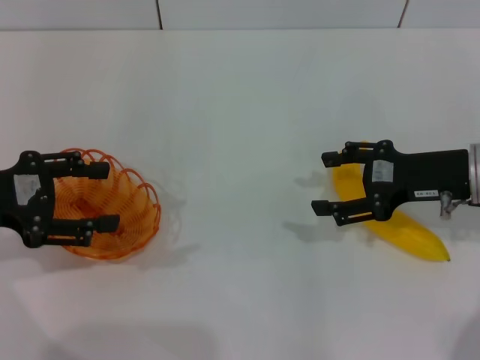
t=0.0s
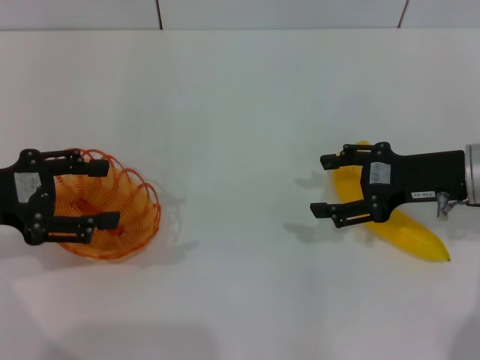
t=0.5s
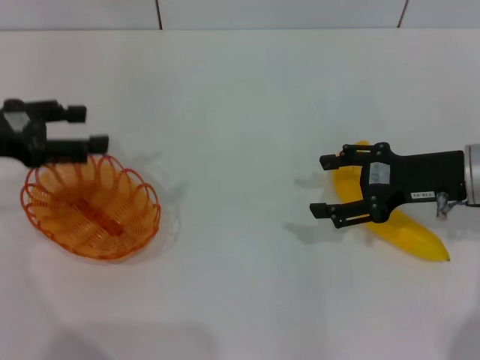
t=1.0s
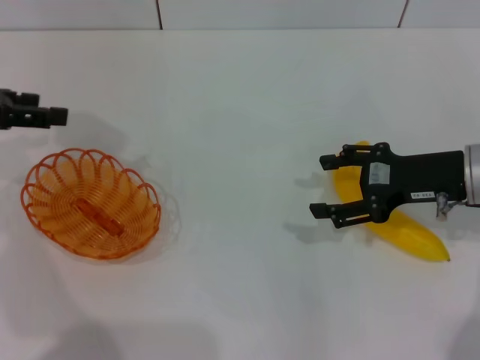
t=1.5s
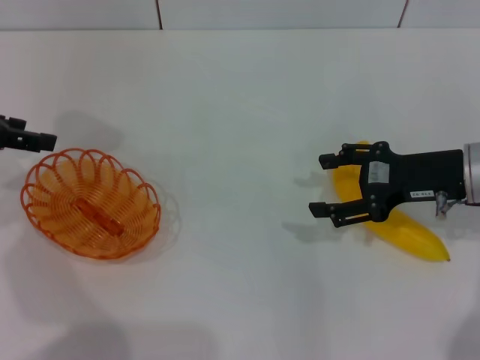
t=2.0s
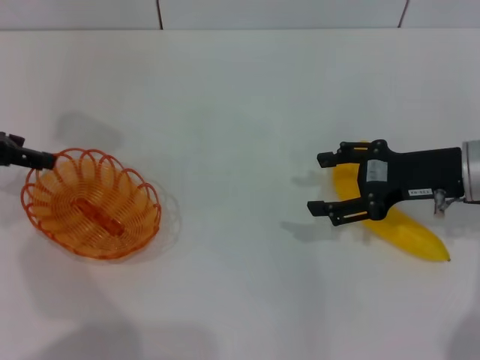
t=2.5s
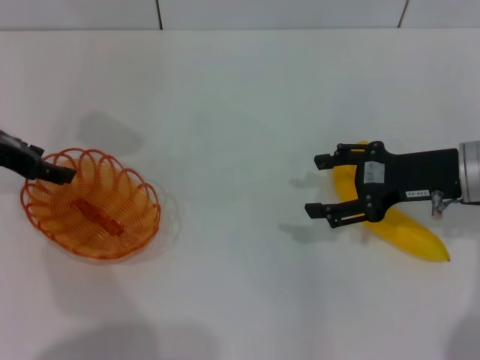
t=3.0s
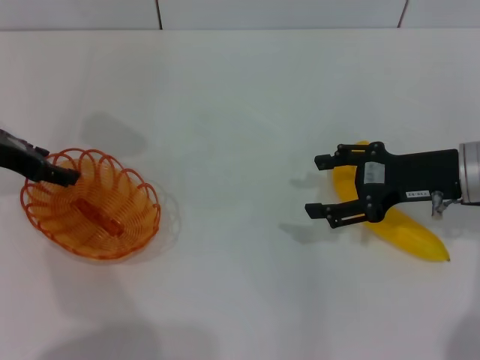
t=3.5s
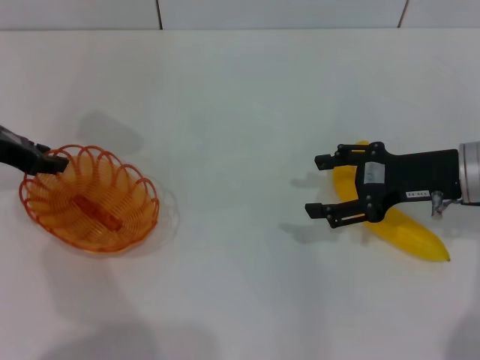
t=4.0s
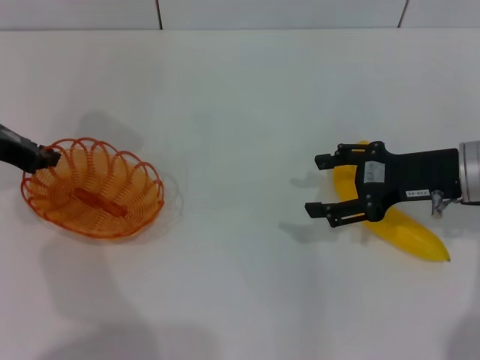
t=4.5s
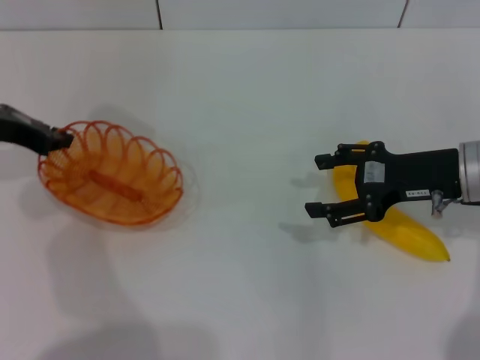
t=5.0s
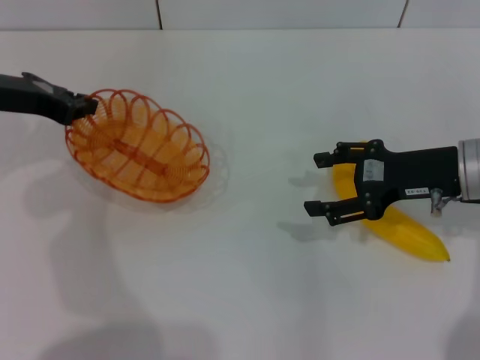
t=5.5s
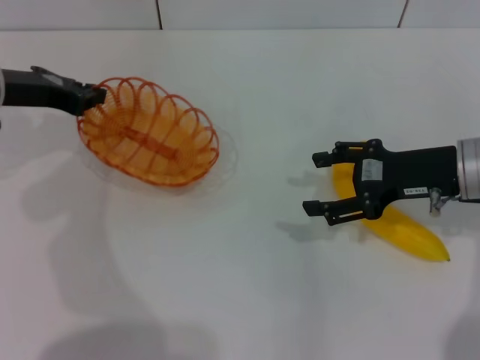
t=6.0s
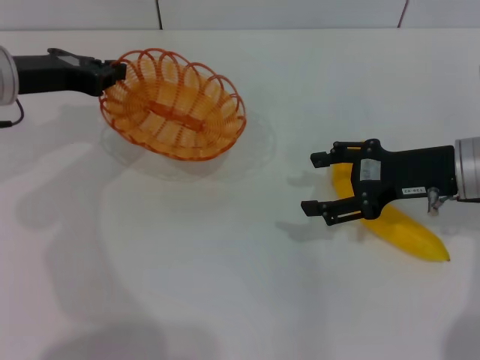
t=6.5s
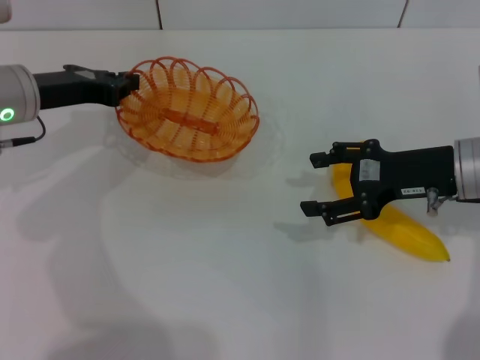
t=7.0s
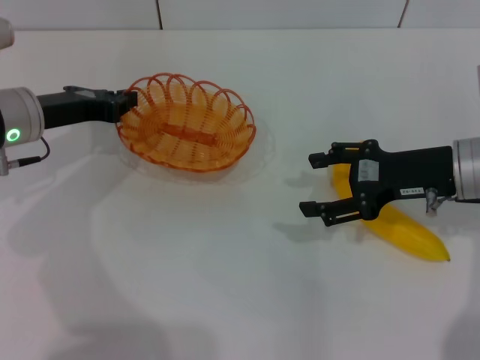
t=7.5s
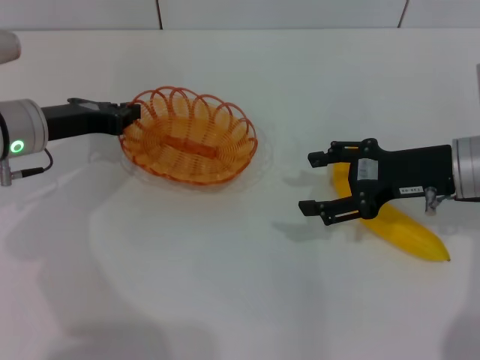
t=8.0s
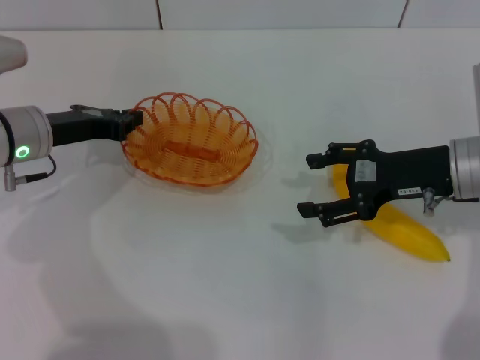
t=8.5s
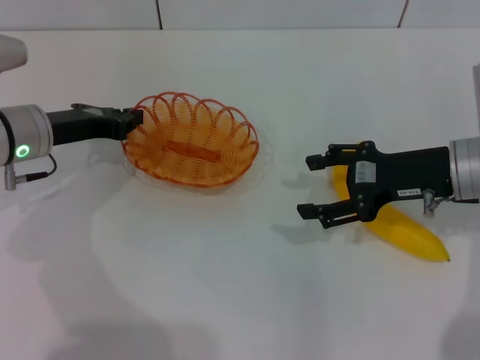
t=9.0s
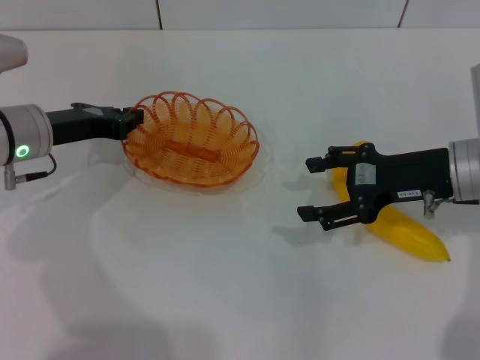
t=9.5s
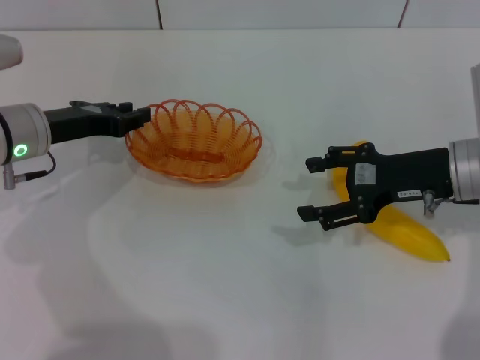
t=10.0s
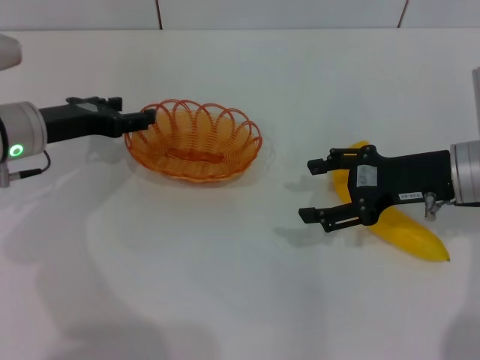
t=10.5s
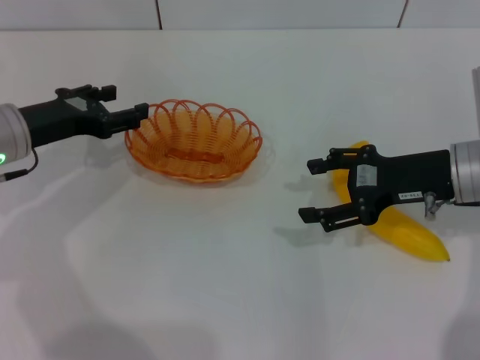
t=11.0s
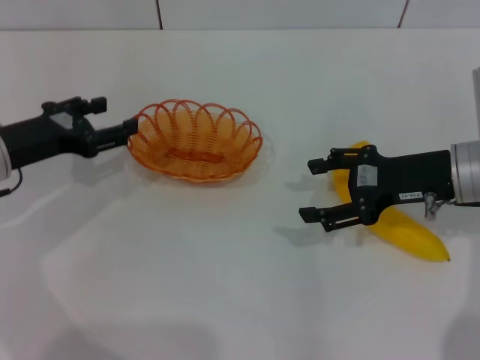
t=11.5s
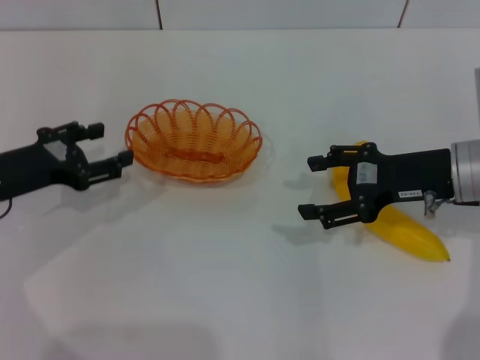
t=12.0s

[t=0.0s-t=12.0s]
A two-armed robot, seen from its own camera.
Step, t=0.0s to t=6.0s: Pick up the basket with the left gripper.
Step, t=6.5s to t=11.5s: Place the basket in the center of view with the left gripper.
t=0.0s to t=2.0s: The left gripper heads forward, covering approximately 10 cm.
t=2.0s to t=4.0s: The left gripper shifts by roughly 5 cm.
t=4.0s to t=6.0s: The left gripper closes.
t=6.0s to t=8.0s: The left gripper heads downward, covering roughly 5 cm.
t=8.0s to t=10.0s: Both grippers stay put.
t=10.0s to t=12.0s: The left gripper shifts about 5 cm backward, and opens.

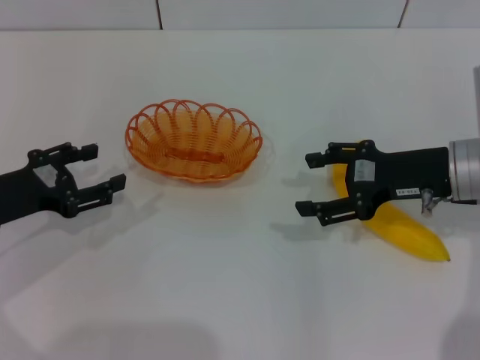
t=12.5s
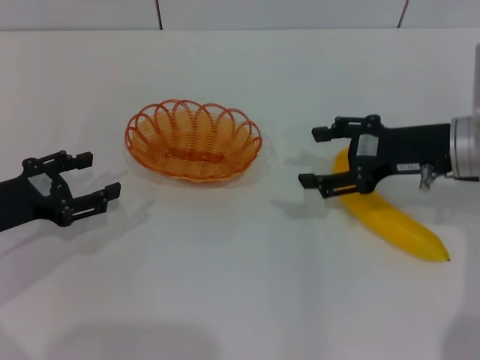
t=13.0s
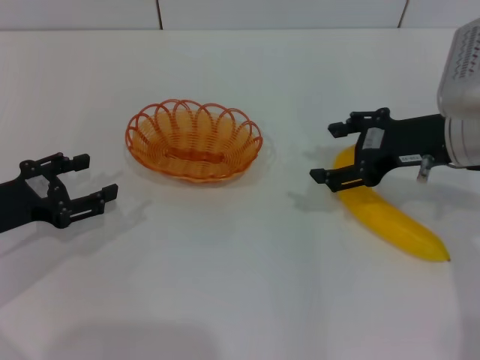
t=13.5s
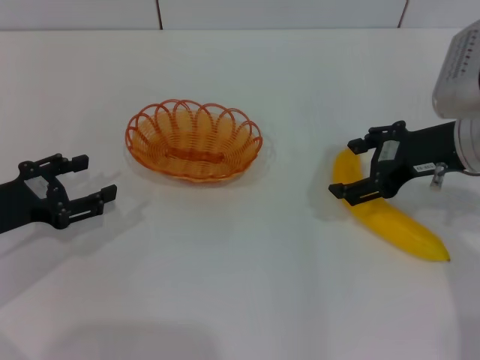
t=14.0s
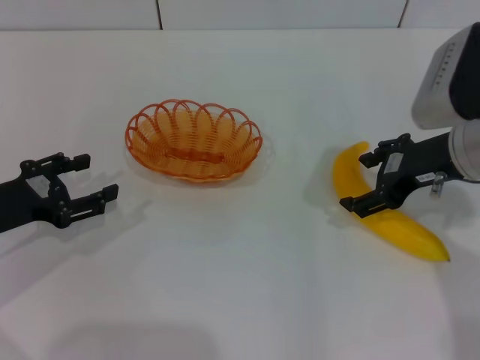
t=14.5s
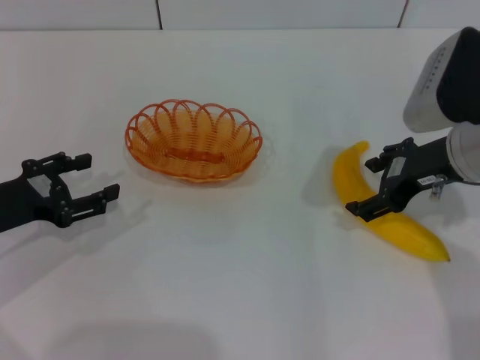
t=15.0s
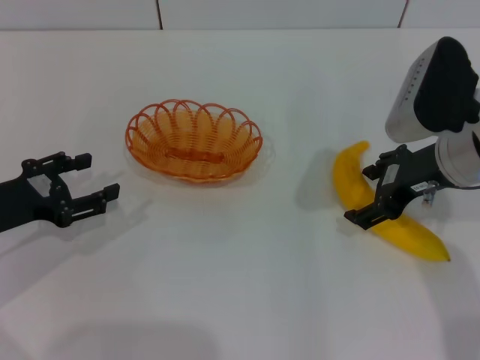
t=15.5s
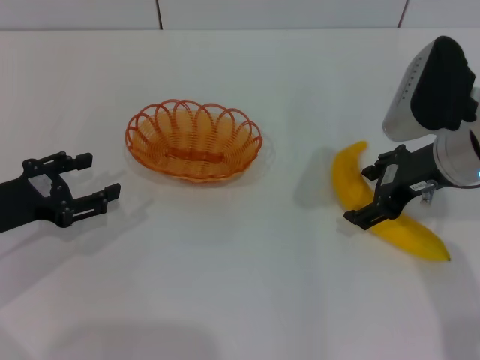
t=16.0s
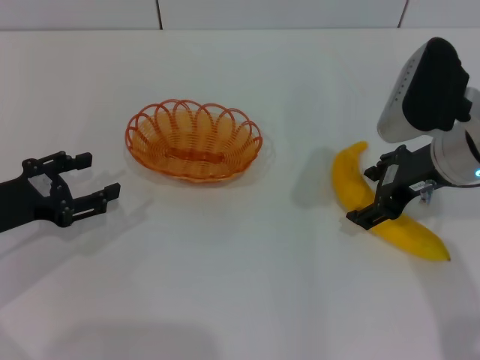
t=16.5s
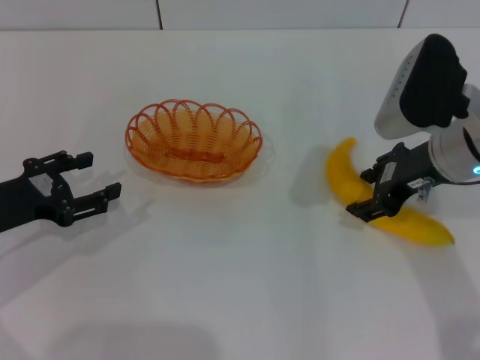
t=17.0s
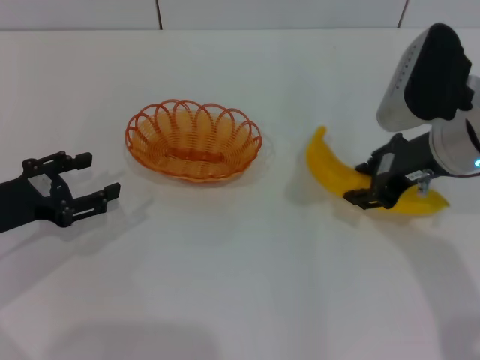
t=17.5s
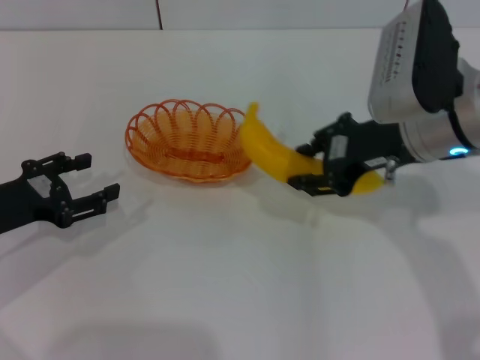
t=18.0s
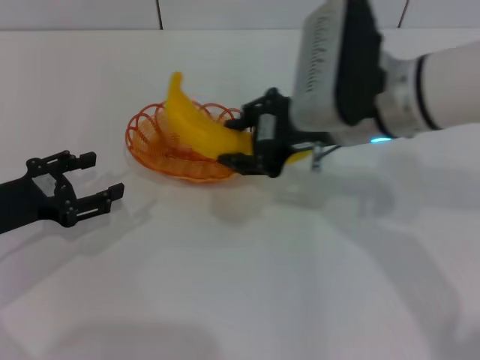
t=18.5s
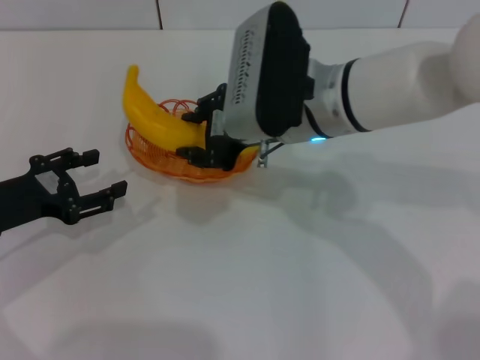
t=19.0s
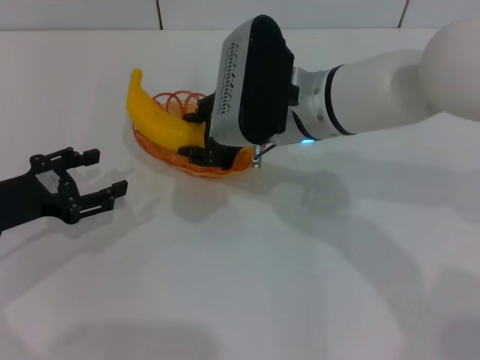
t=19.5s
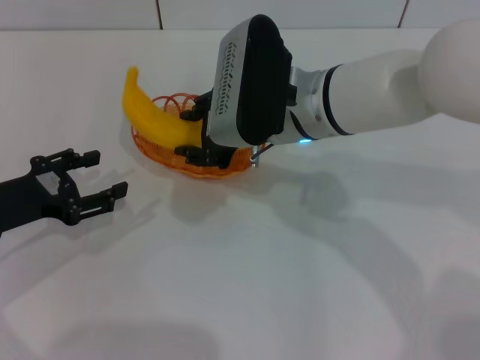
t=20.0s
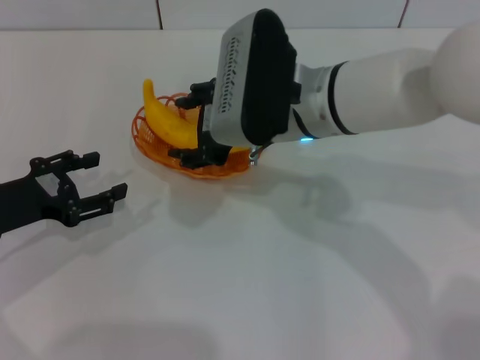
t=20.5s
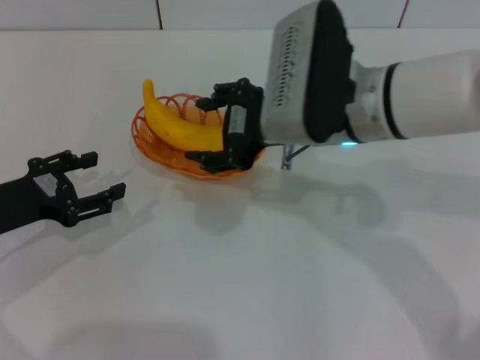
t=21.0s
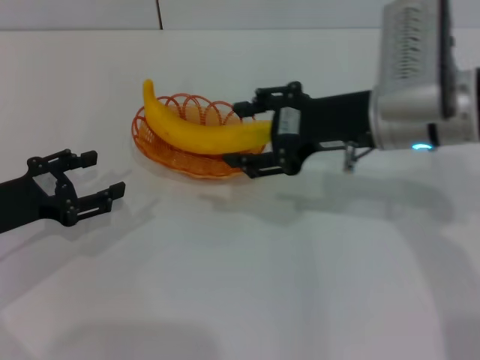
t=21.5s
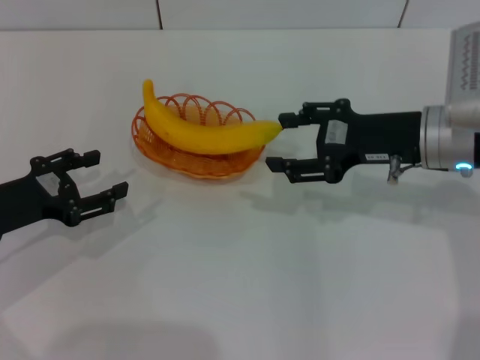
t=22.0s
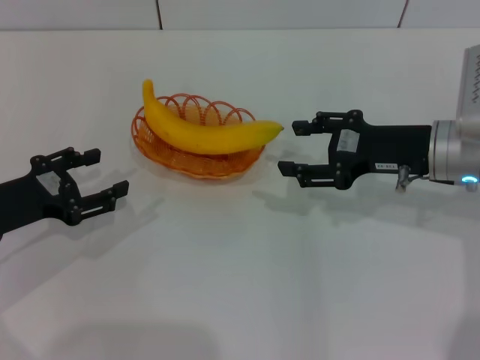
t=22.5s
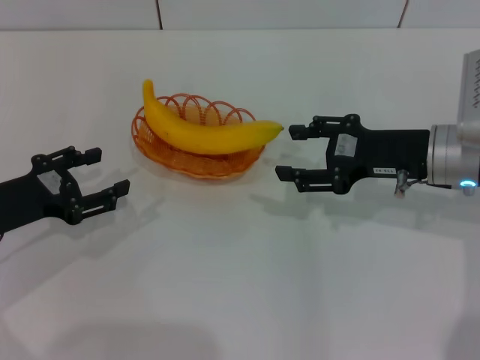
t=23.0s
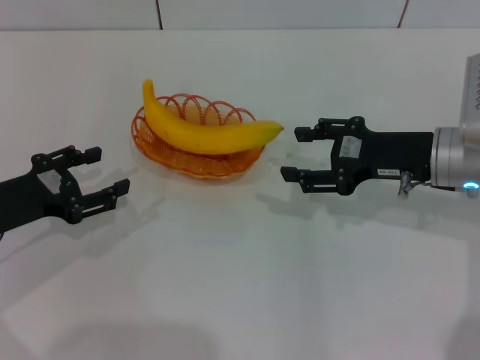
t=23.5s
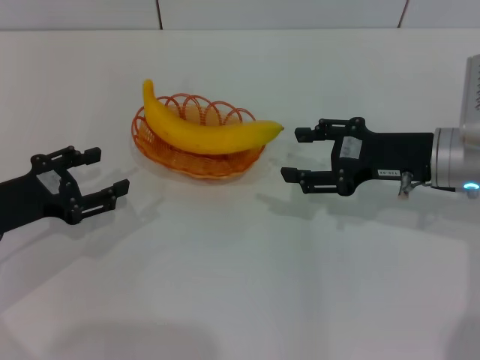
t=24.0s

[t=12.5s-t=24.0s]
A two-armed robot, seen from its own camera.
Step, t=12.5s to t=17.5s: Pick up the banana with the right gripper.
Step, t=18.0s to t=20.5s: Place the banana into the basket with the right gripper.
t=14.5s to t=16.5s: The grippers make only small movements.
t=16.5s to t=18.5s: The right gripper heads to the left, covering approximately 10 cm, and closes up.
t=18.5s to t=20.0s: The right gripper travels to the left by about 5 cm.
t=20.0s to t=22.0s: The right gripper shifts some 15 cm to the right.
t=22.0s to t=24.0s: The grippers move only a little.

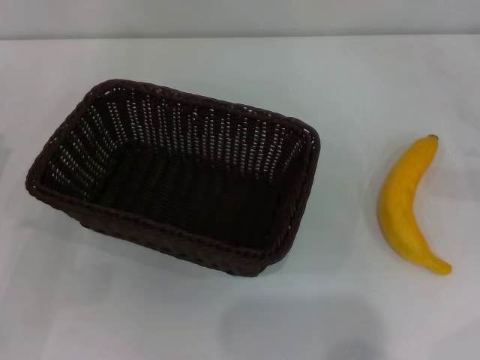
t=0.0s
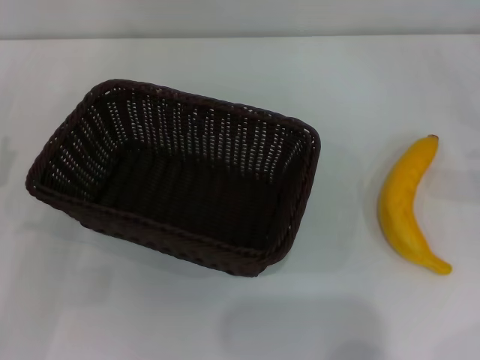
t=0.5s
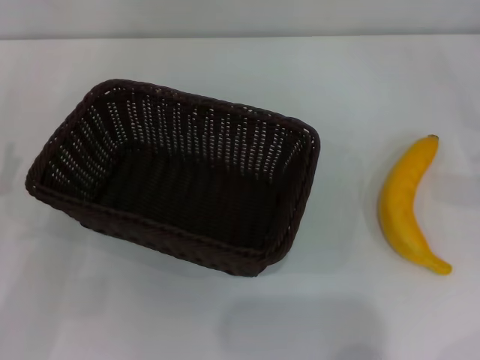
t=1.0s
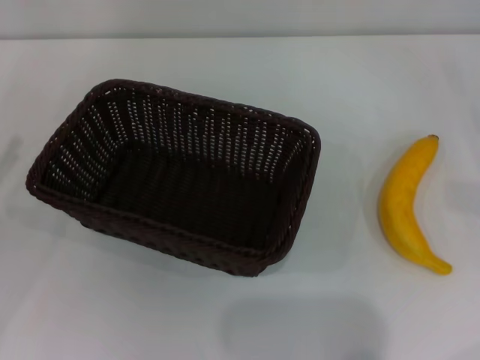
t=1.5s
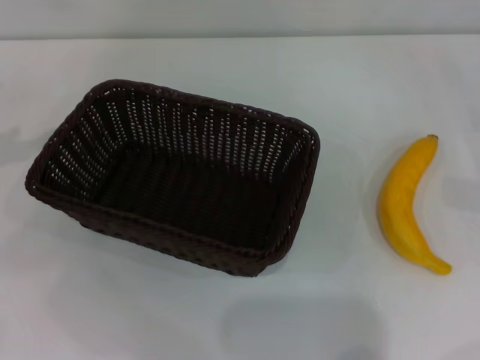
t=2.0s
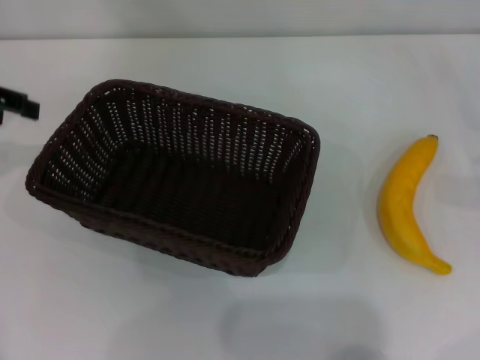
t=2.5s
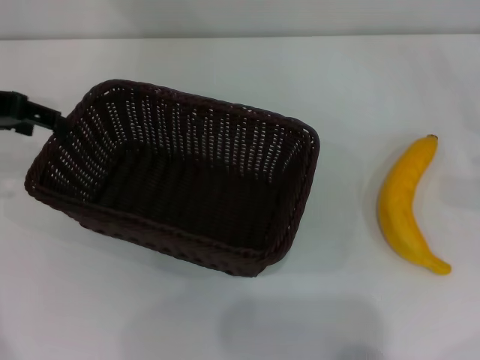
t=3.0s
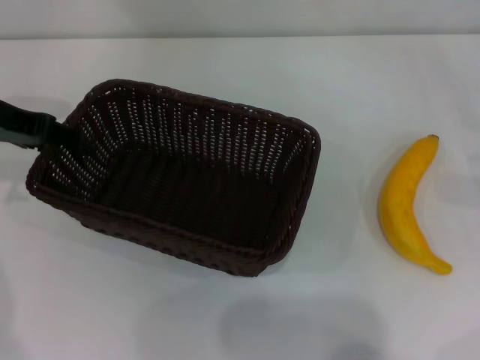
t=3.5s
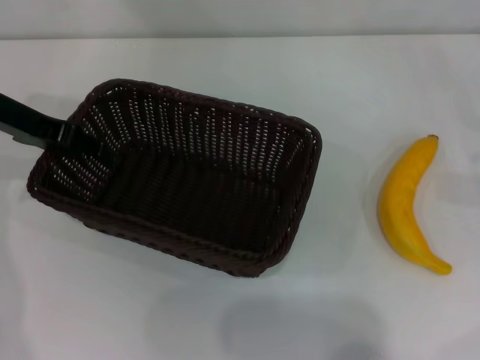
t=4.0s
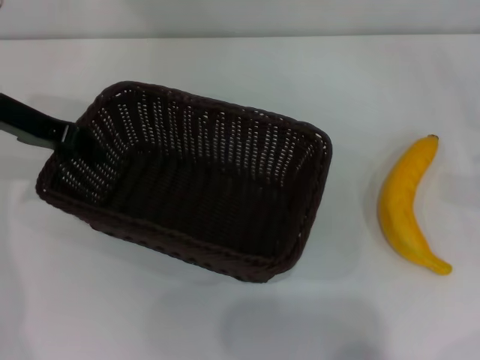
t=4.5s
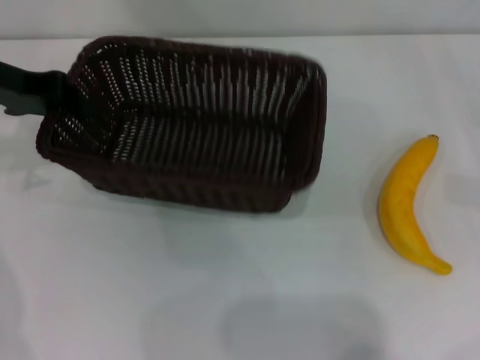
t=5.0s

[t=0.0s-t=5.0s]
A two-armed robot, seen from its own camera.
Step, t=0.0s to t=4.5s: Pick up the dark basket with the left gripper.
t=2.5s to t=5.0s: The left gripper heads to the right, covering about 5 cm, and closes its fingers.
